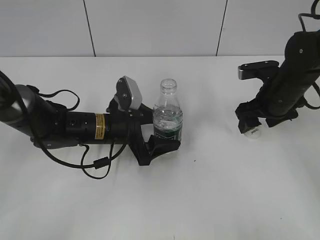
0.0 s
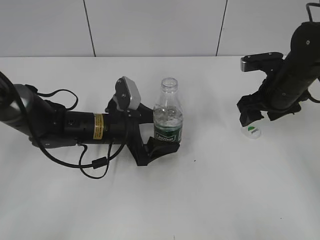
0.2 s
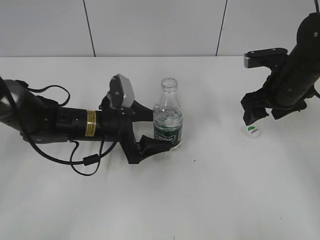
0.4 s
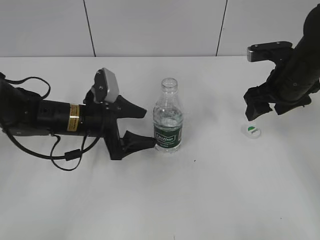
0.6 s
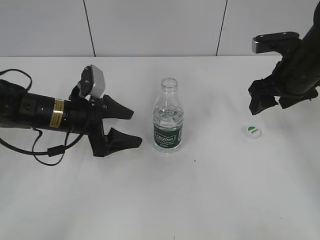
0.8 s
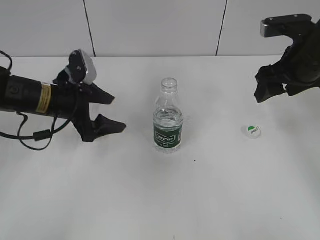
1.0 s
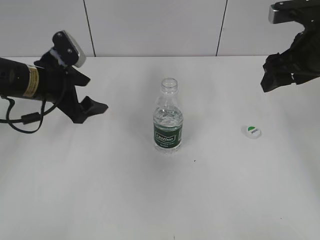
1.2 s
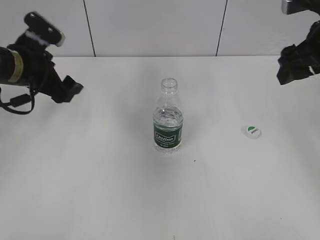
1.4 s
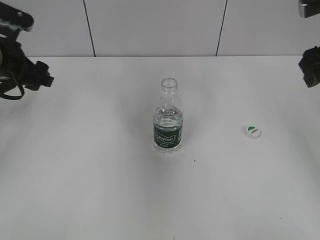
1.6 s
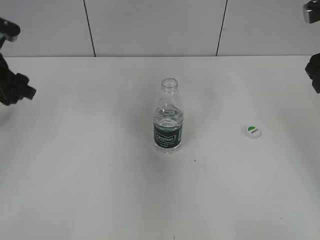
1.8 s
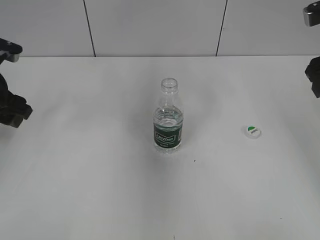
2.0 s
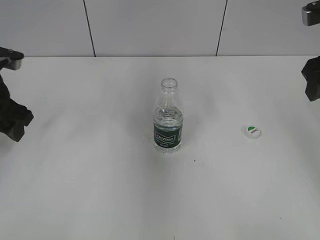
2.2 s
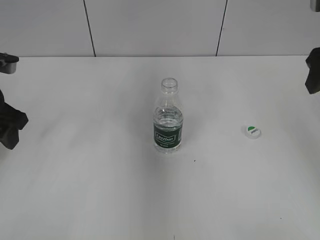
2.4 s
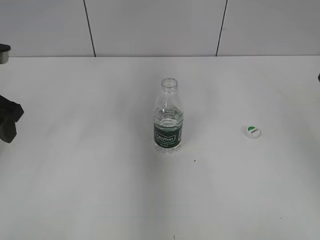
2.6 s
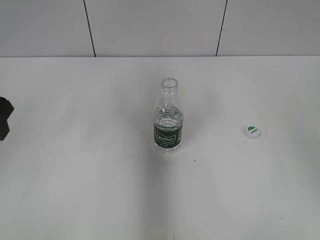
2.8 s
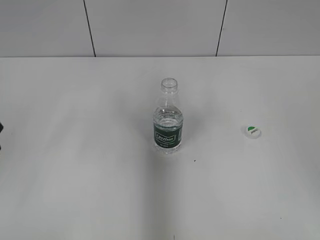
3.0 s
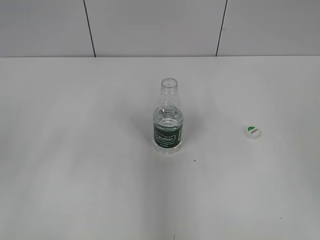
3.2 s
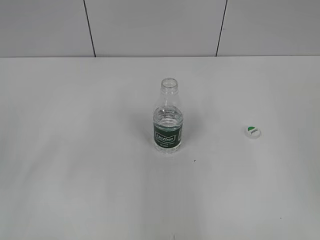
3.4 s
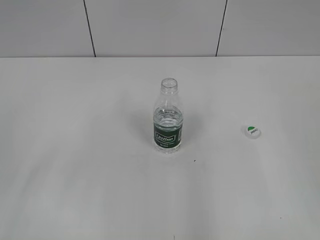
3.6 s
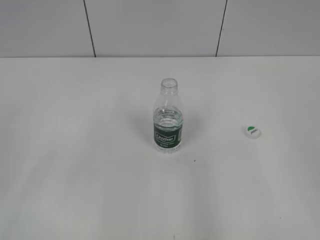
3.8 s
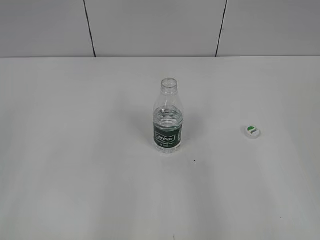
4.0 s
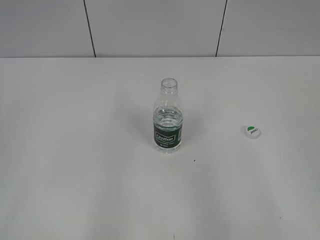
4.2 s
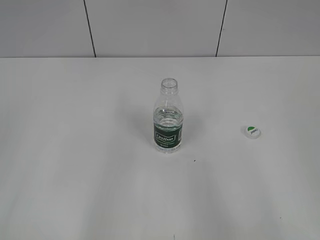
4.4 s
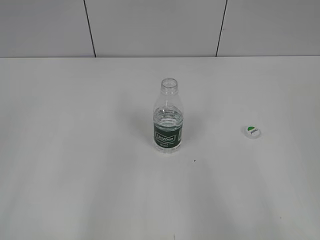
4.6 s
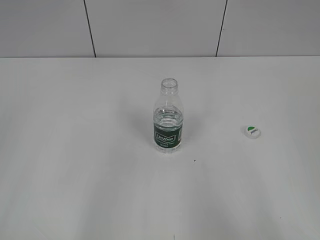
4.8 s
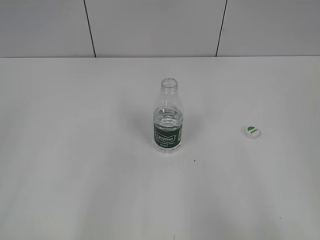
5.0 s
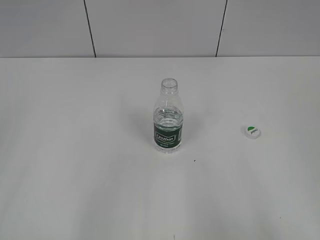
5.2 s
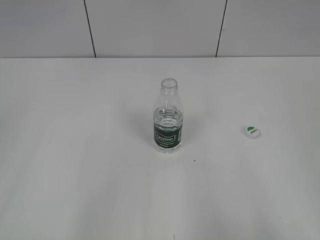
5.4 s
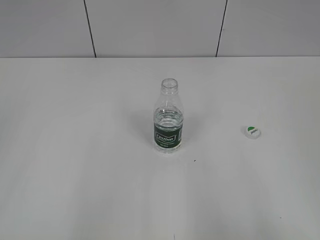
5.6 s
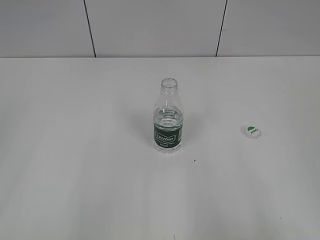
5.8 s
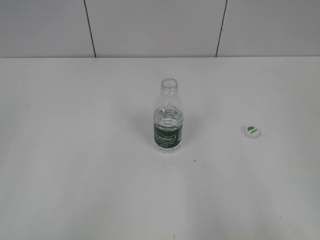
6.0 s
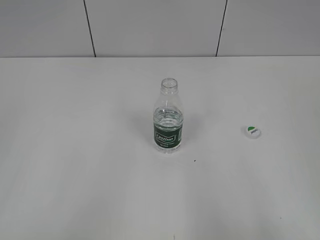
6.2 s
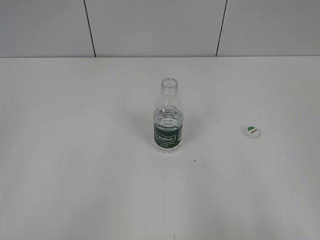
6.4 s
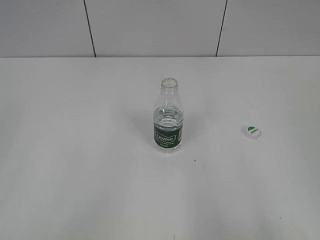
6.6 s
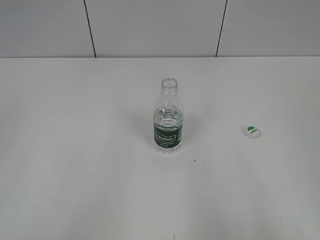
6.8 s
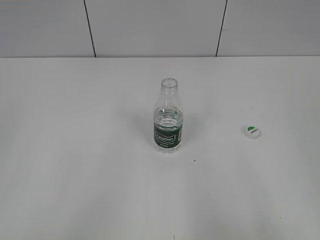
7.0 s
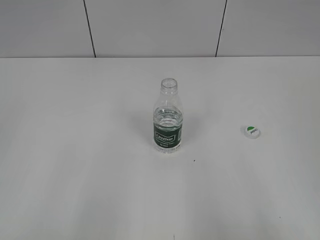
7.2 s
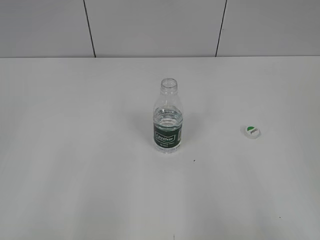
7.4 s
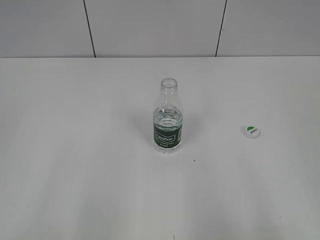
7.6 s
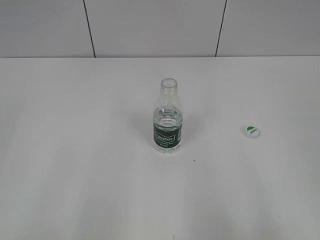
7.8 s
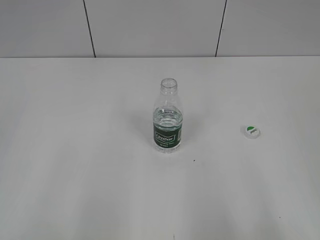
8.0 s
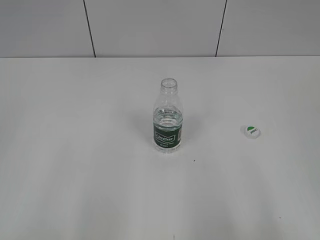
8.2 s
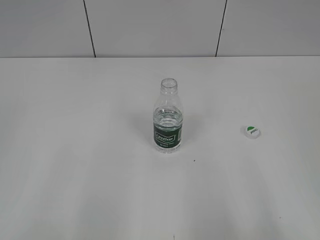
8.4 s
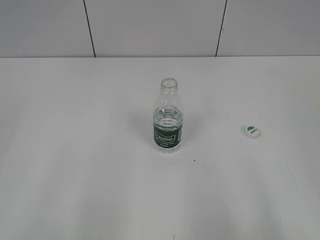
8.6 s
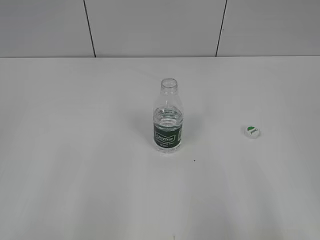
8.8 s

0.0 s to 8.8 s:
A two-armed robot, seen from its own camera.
Step, 0.0 to 0.6 s: Place the bottle on the table with the left gripper.
0.0 to 1.4 s: The right gripper shifts approximately 15 cm upward. The left gripper heads to the left and upward, covering roughly 20 cm.
1.4 to 3.0 s: The right gripper travels backward by about 15 cm, while the left gripper shifts some 15 cm backward and upward, and closes its fingers.
3.0 to 4.4 s: The two grippers go some 15 cm backward.

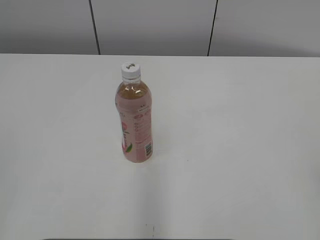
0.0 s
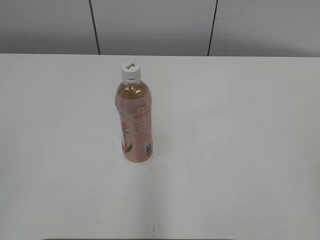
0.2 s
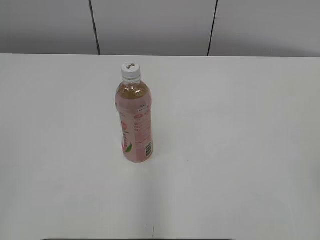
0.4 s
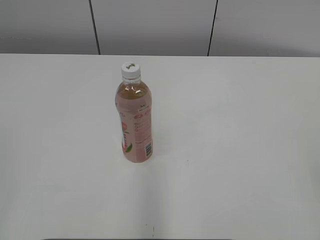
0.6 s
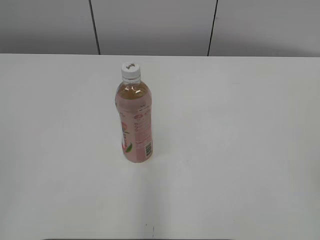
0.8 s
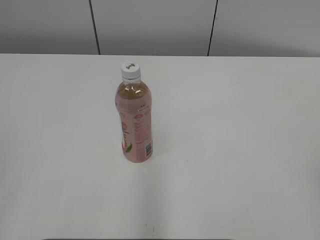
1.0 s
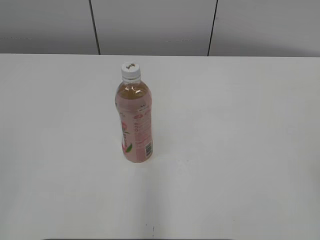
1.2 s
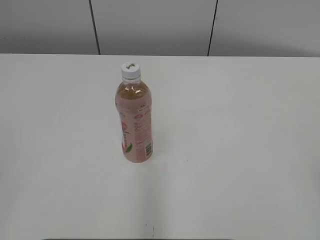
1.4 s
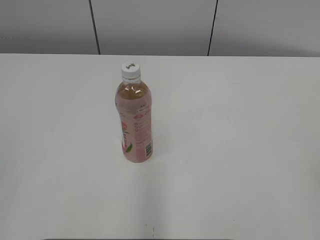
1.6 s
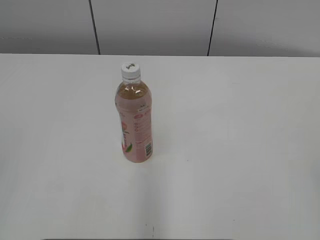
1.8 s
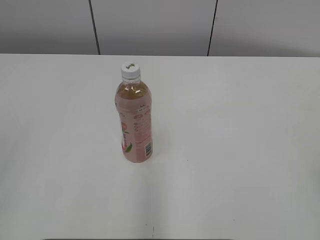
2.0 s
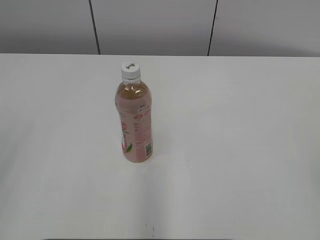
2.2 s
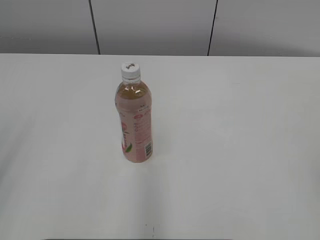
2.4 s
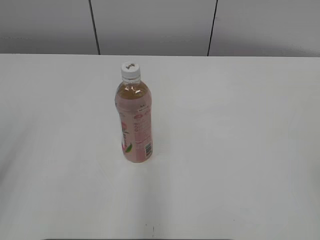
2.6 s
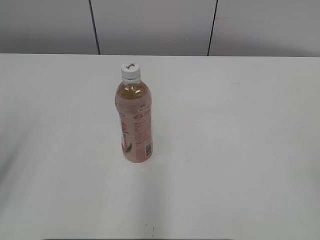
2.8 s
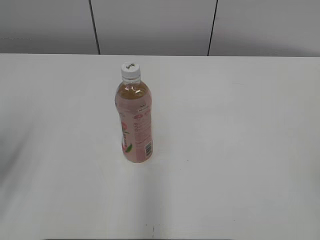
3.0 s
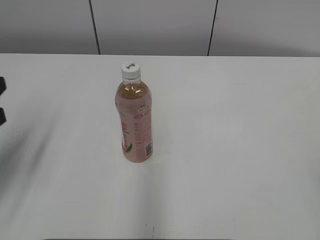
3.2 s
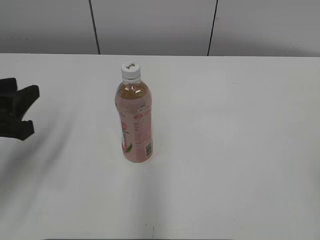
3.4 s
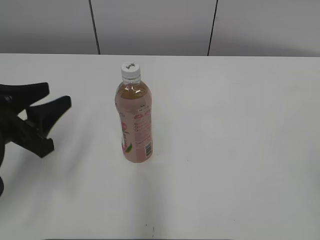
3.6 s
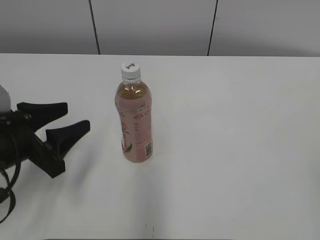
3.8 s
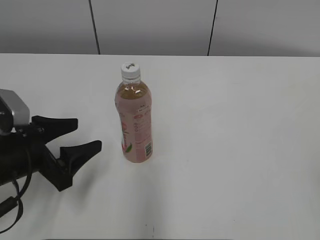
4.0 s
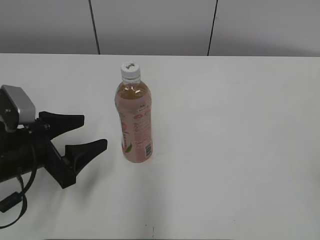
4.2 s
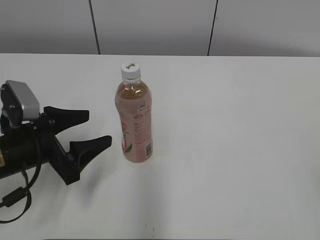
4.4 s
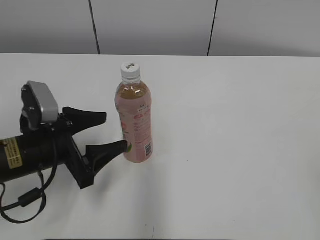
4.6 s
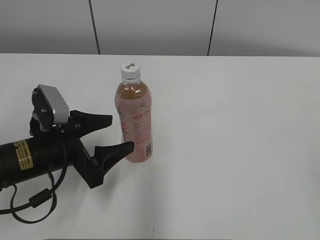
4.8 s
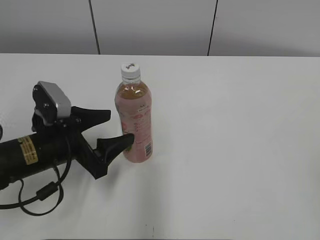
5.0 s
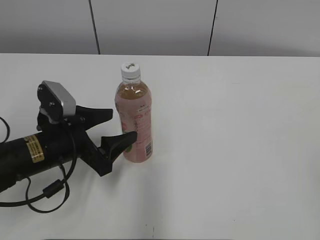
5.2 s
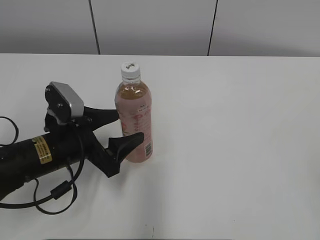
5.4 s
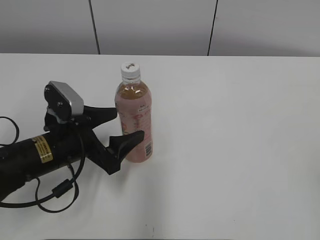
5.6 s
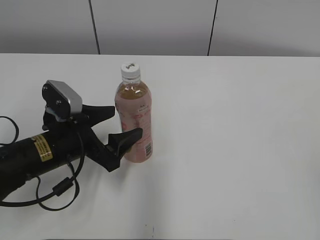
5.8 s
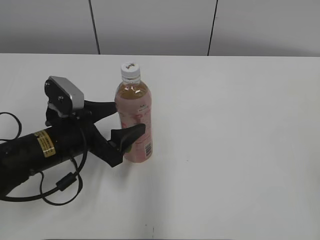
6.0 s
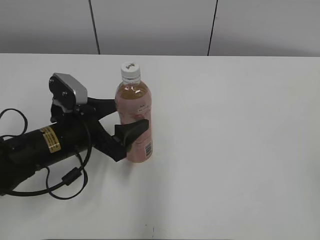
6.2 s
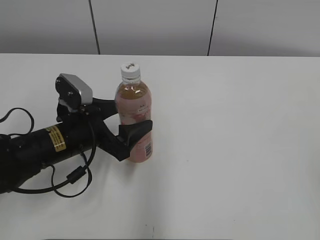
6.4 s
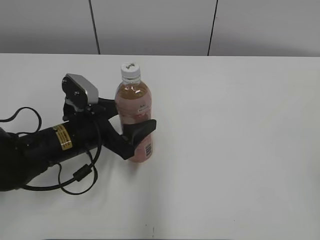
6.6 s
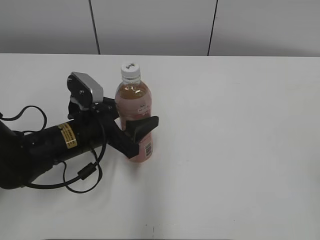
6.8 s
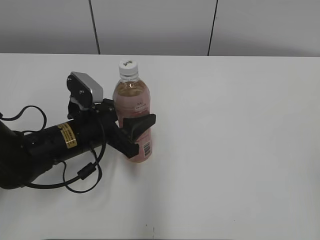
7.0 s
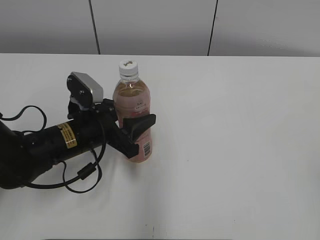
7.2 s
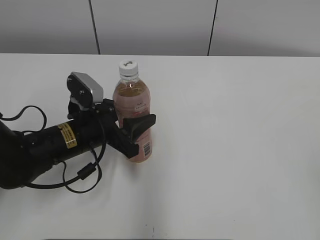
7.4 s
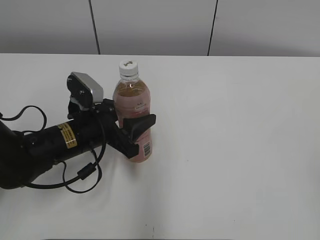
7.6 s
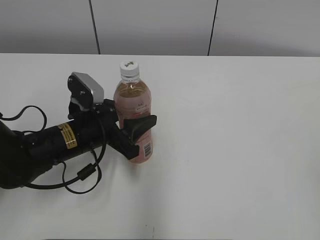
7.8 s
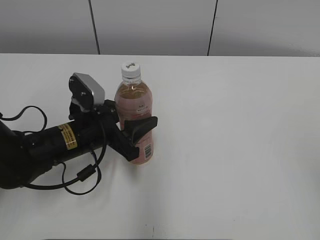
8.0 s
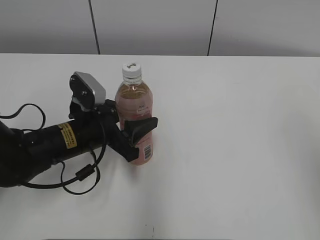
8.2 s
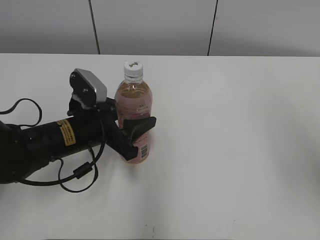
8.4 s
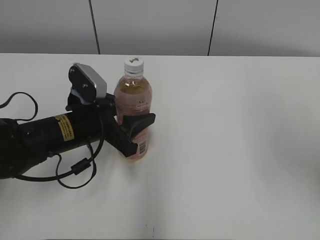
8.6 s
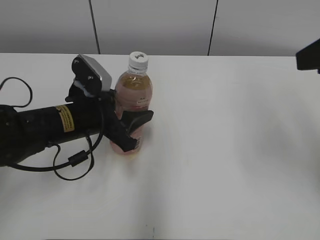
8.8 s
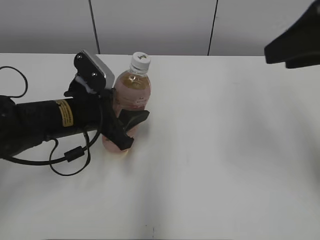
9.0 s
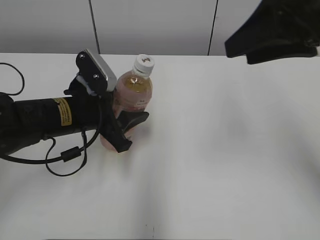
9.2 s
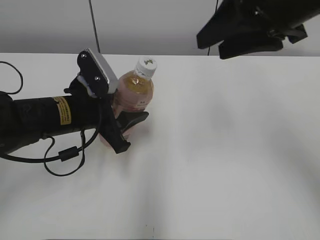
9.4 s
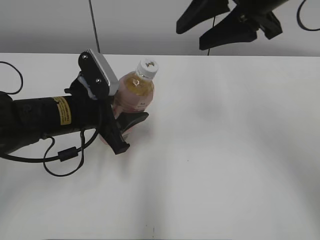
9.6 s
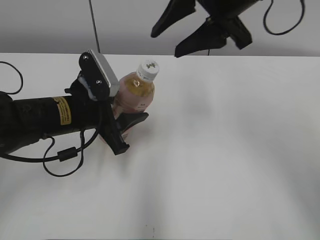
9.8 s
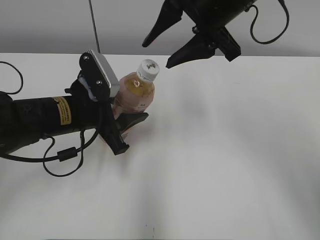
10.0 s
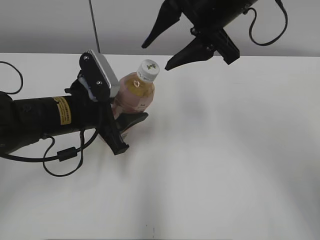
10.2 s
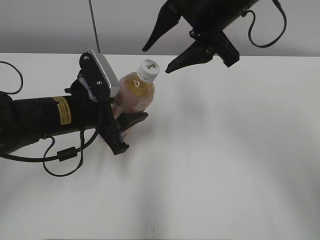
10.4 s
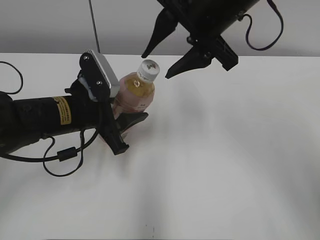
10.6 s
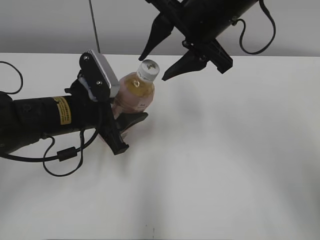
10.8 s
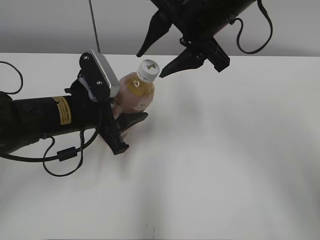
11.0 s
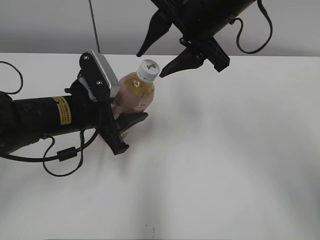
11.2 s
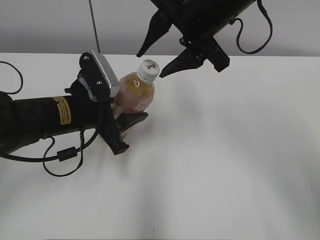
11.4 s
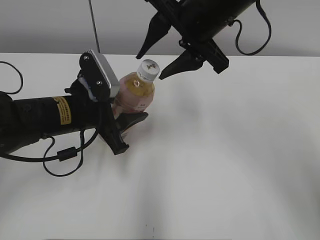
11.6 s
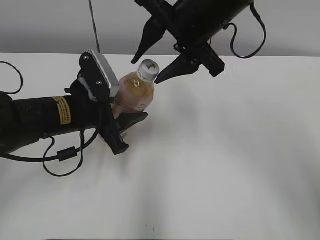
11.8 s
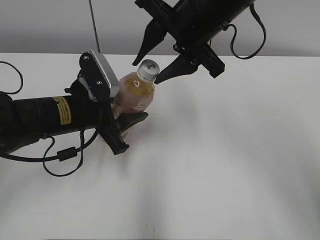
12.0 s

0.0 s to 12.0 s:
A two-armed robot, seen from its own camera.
Step, 0.0 to 8.2 s: Grab the Peach Oolong Tea with the left hand.
1.6 to 3.0 s: The left gripper heads forward and downward, covering about 20 cm.
3.0 to 4.4 s: The left gripper shifts about 15 cm downward, to the right and forward, and opens.
4.4 to 6.0 s: The left gripper travels to the right by some 5 cm.
6.0 to 7.6 s: The left gripper closes.
7.6 to 9.0 s: The right gripper shifts some 25 cm forward.
9.0 to 10.4 s: The right gripper moves to the left and forward, approximately 20 cm.
10.4 to 12.0 s: The grippers make only small movements.

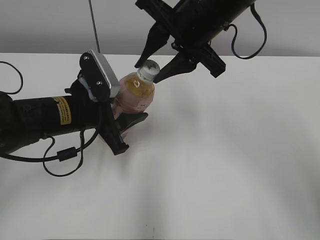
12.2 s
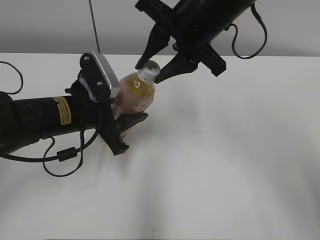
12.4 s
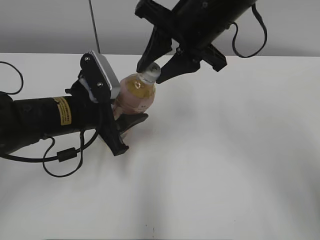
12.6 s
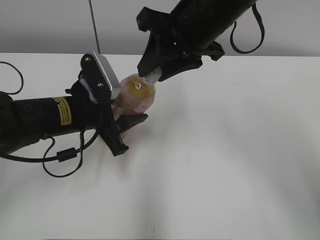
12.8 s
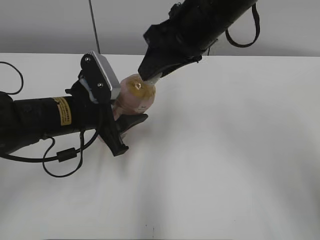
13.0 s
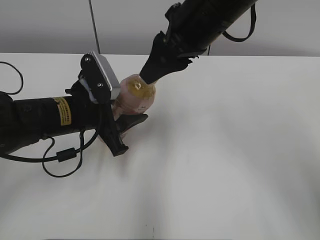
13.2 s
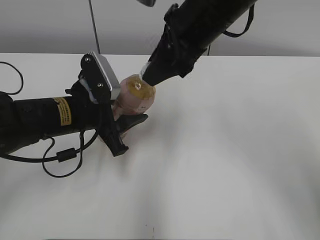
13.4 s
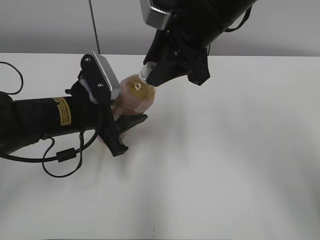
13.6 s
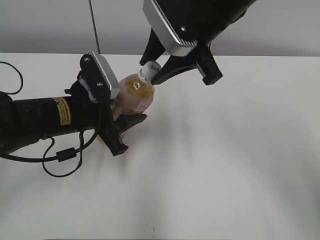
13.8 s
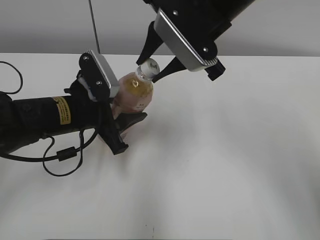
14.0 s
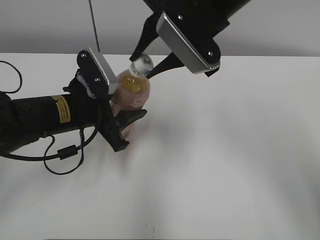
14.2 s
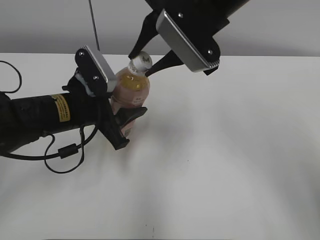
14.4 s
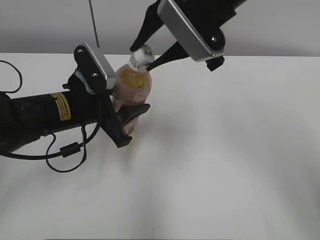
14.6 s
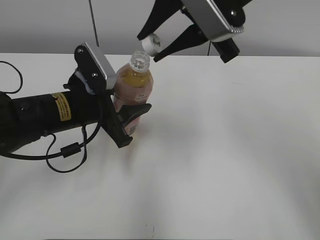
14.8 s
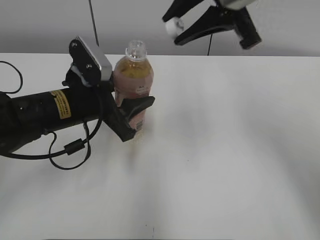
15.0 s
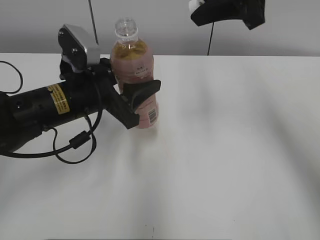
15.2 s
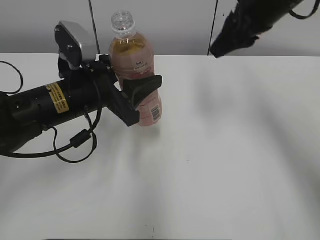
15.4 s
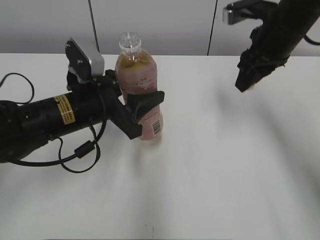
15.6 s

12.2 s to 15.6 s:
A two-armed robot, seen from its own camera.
Step, 12.2 to 14.4 s: Secure the Peach Oolong Tea with the left hand.
13.8 to 15.6 s: The right gripper travels to the right and forward by roughly 15 cm.
